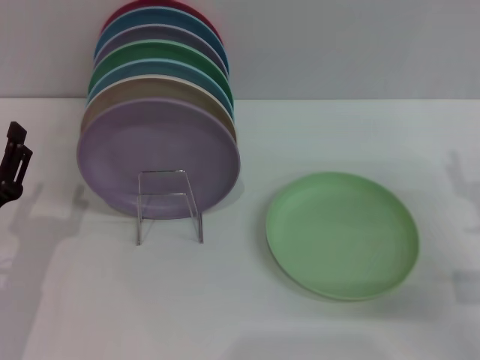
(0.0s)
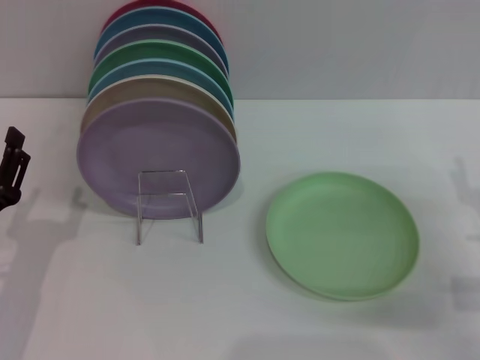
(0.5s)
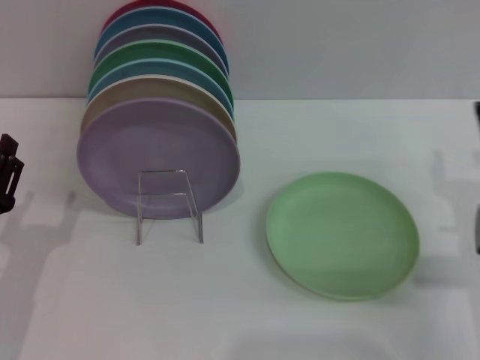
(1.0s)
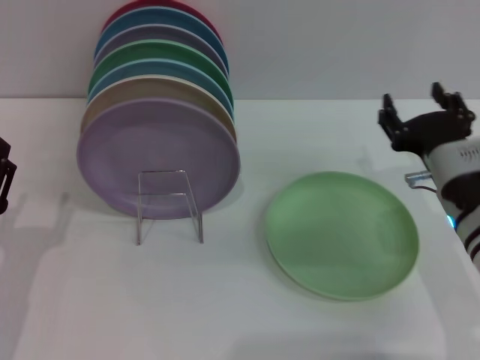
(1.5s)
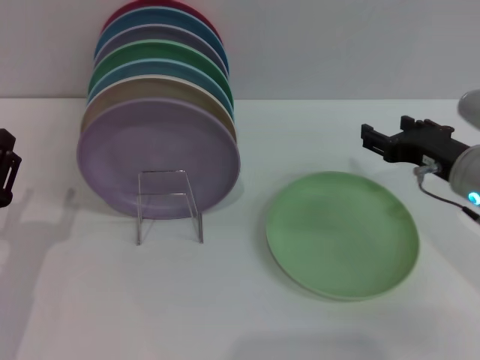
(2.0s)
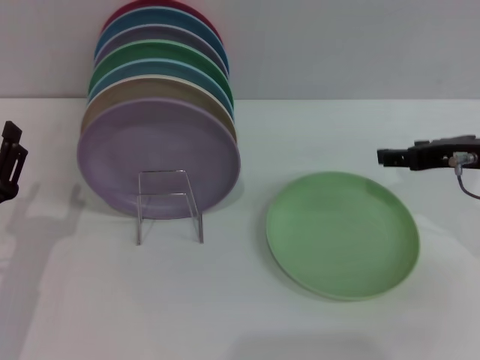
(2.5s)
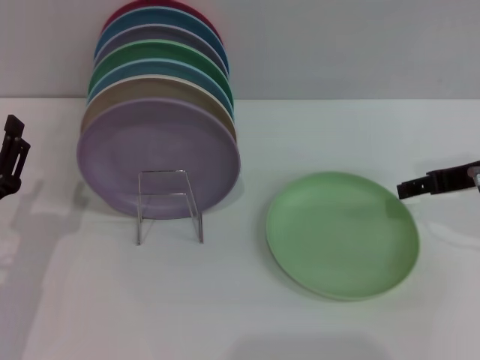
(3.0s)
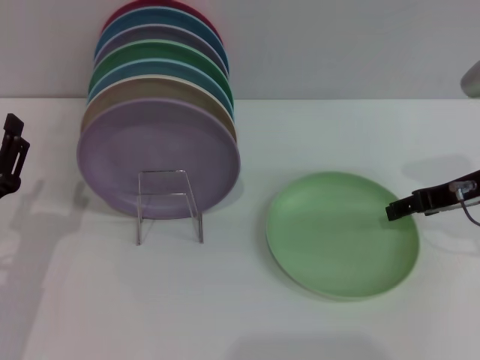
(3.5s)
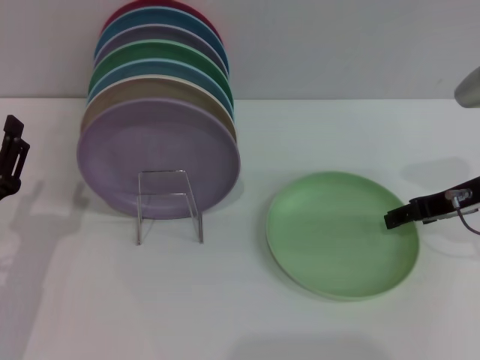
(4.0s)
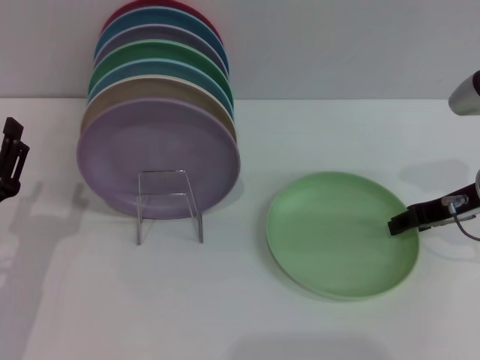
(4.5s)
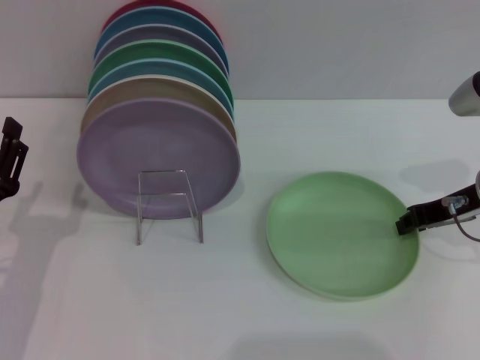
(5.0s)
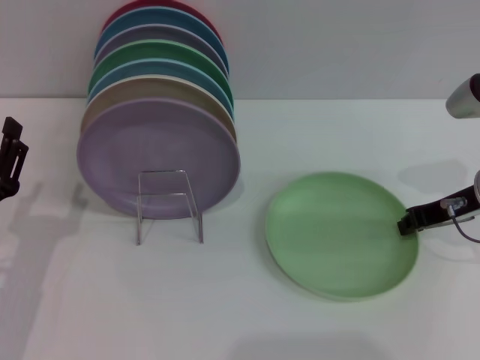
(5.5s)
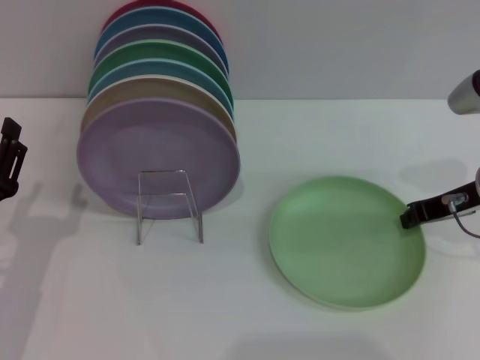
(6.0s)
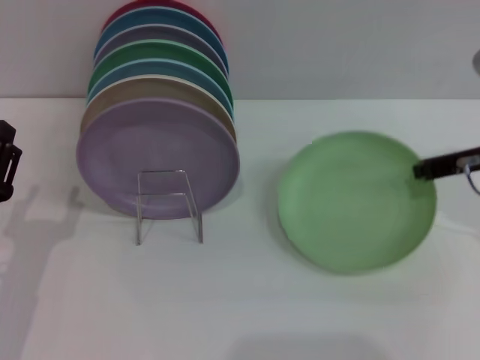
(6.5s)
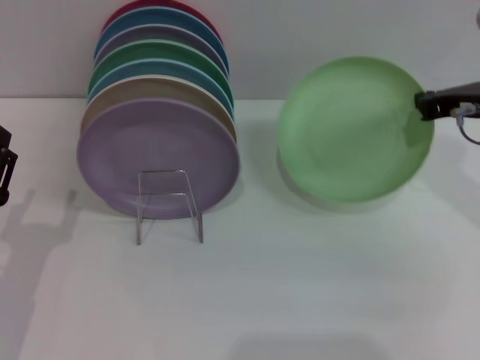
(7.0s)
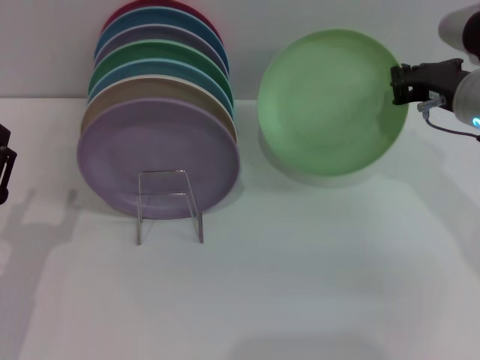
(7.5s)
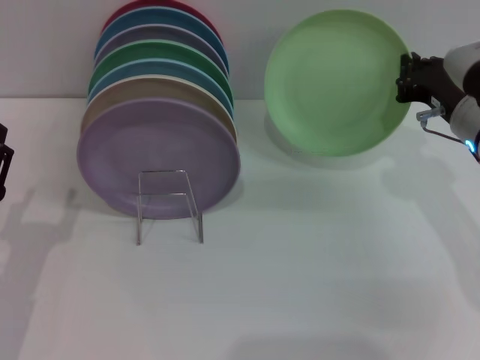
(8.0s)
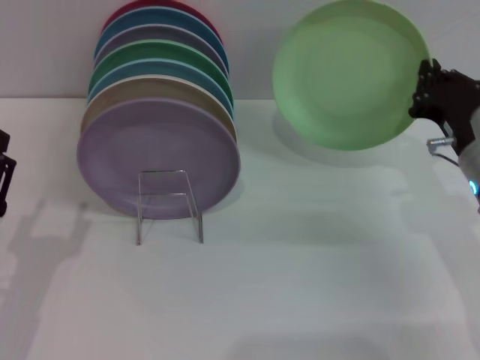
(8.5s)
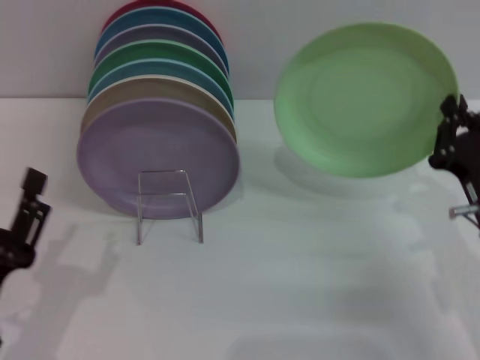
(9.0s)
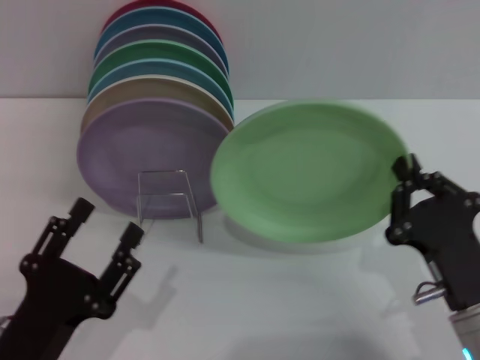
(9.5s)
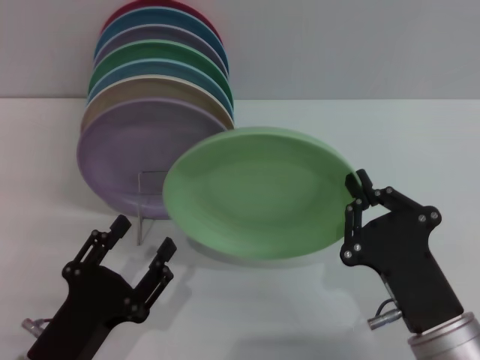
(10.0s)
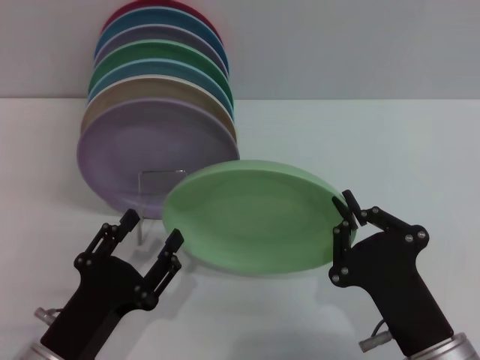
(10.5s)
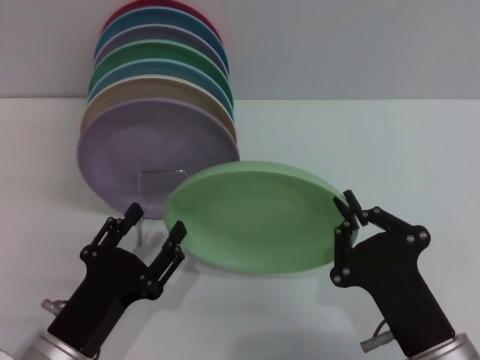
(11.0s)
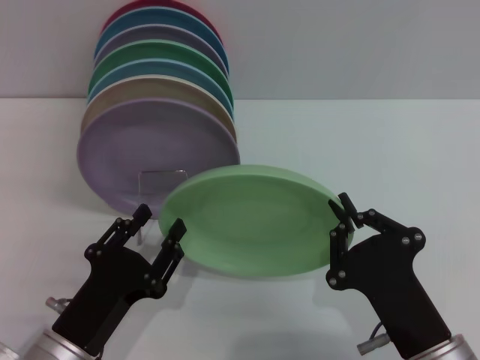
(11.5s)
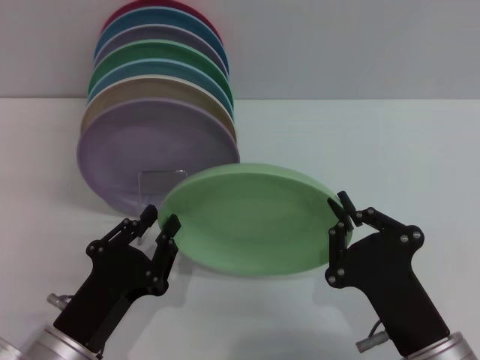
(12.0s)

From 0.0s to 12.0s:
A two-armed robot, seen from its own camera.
Task of the whole recording: Grip the plate with one hand, pass it to the other, then set it on the shelf.
Step, from 0.0s to 8.5s: Pick up the plate with the right gripper.
From 0.0s to 2.0s: The right gripper heads forward and to the left, covering some 10 cm.
From 4.0s to 6.0s: The right gripper closes.
From 8.0s to 10.0s: The left gripper moves to the right and backward, roughly 10 cm. The right gripper moves backward and downward, some 20 cm.
From 10.0s to 12.0s: The left gripper closes.

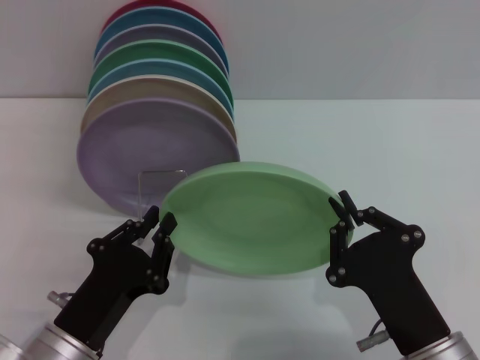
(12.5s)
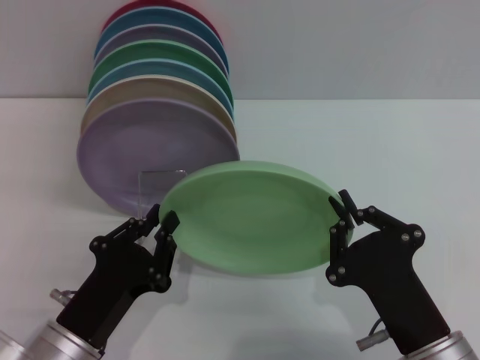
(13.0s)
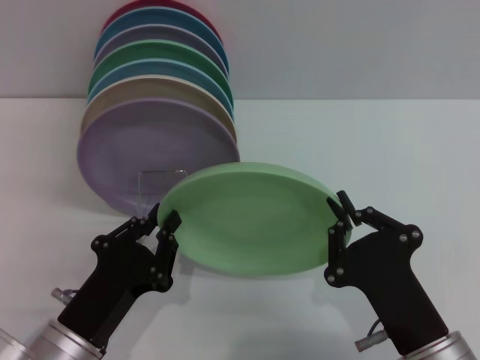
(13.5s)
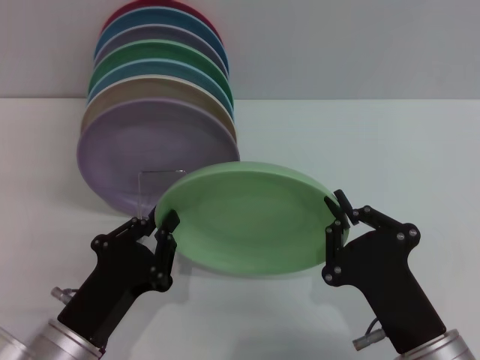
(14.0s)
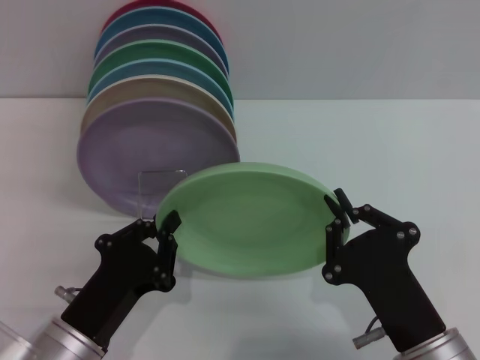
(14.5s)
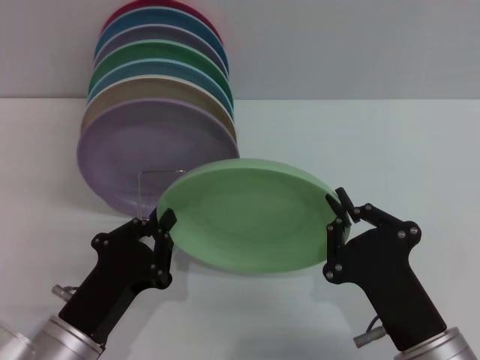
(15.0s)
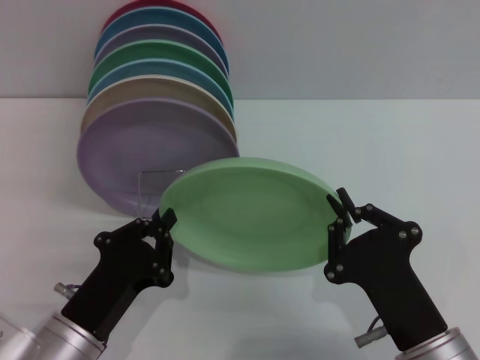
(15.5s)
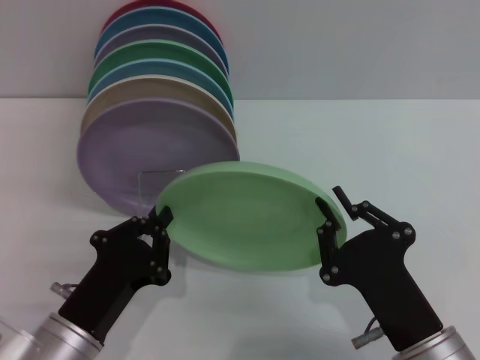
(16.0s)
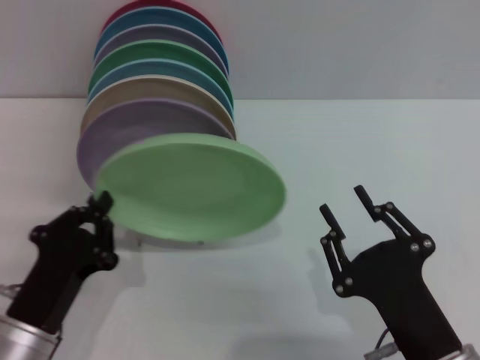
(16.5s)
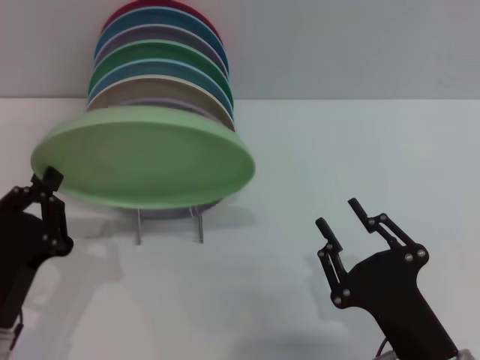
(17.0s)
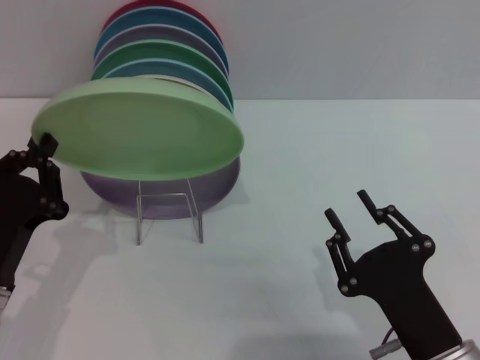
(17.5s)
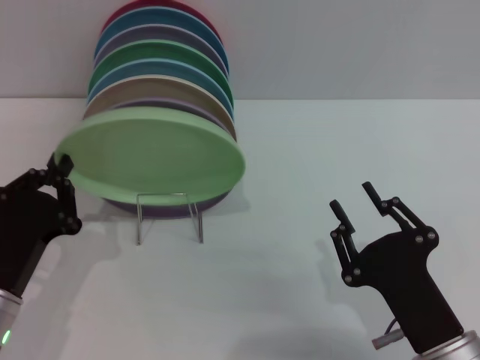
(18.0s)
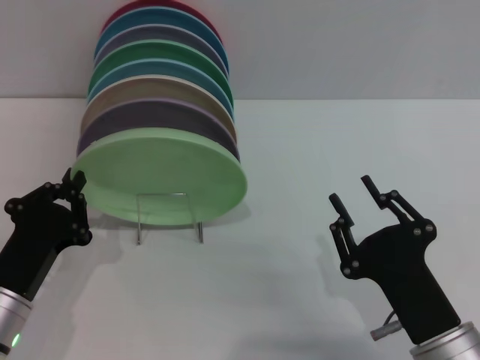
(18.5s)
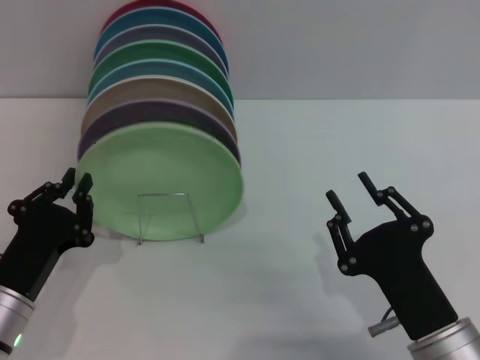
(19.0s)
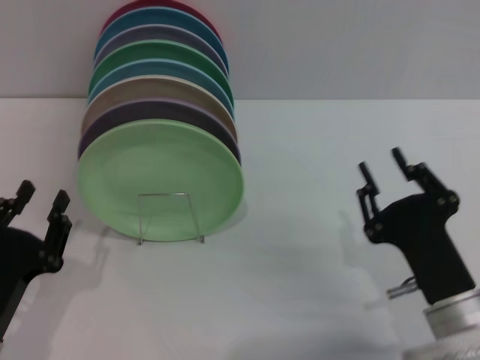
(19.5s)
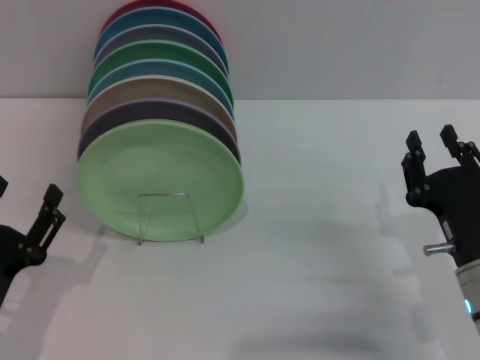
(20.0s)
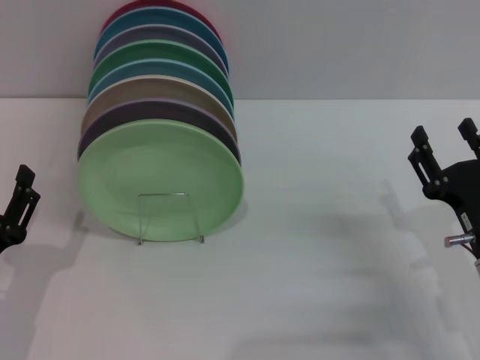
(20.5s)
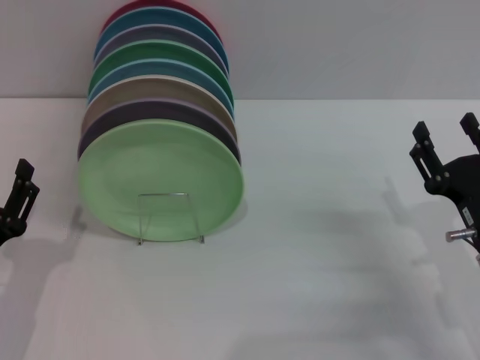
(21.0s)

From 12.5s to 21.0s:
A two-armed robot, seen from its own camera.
Task of the whole recording: Grip the plate with one hand, pass it to the other, then set it on the shelf.
Step, from 12.5s to 16.0s: Pass the plate from the right gripper to the left gripper.
Step, from 16.5s to 19.0s: Place the plate on the shelf with the left gripper.
From 12.5s to 14.5s: Both grippers stay put.
From 14.5s to 16.5s: The right gripper opens its fingers.
From 16.5s to 19.0s: There are only small adjustments of the grippers.
From 19.0s to 21.0s: The left gripper opens up; the right gripper is displaced to the right and forward by approximately 10 cm, and opens up.
